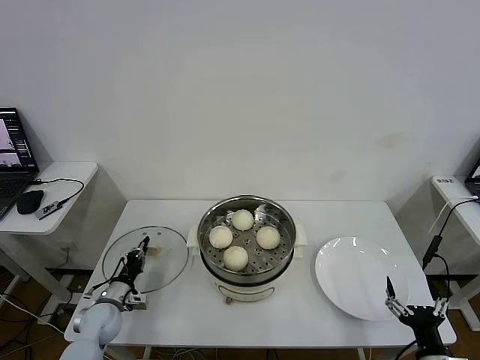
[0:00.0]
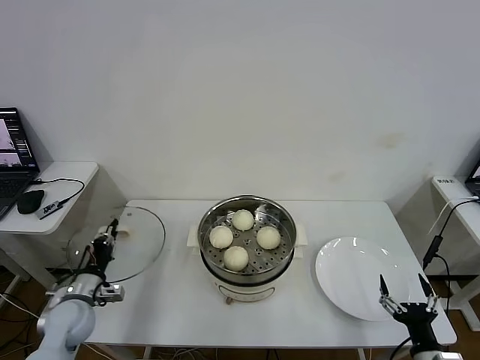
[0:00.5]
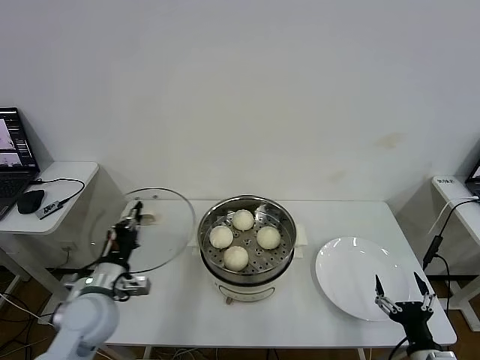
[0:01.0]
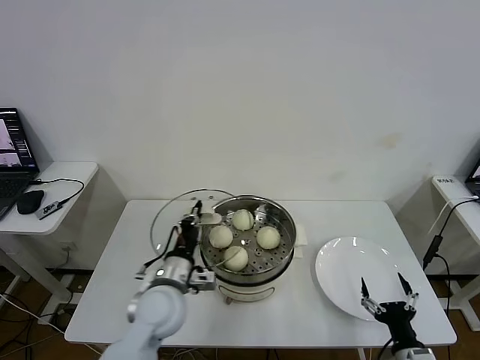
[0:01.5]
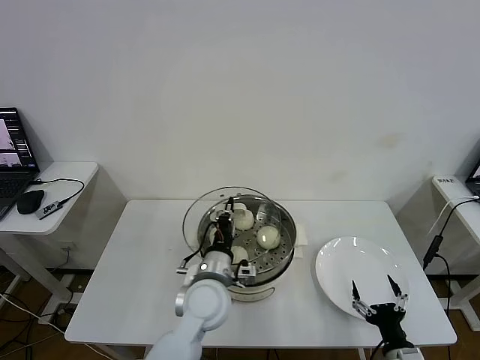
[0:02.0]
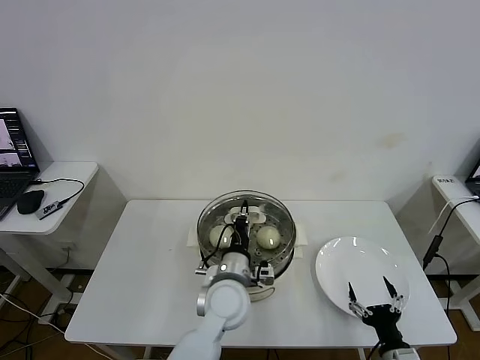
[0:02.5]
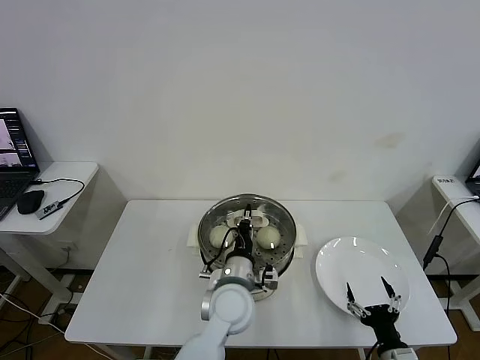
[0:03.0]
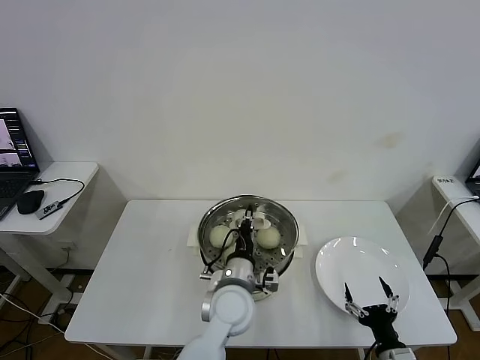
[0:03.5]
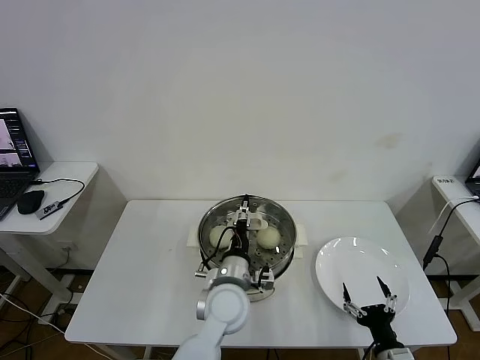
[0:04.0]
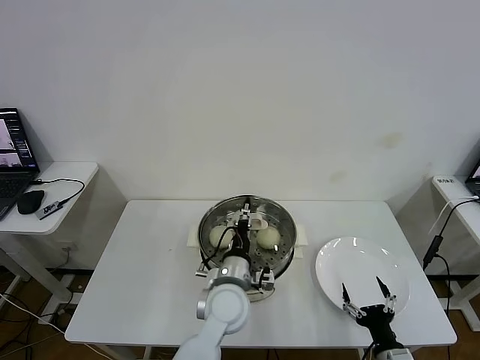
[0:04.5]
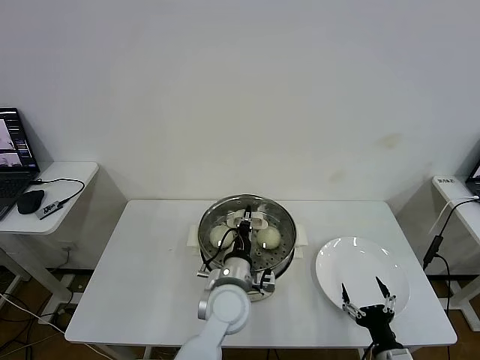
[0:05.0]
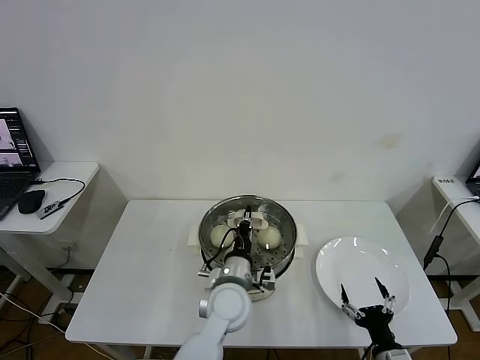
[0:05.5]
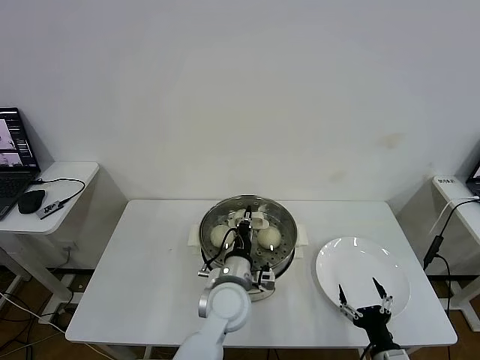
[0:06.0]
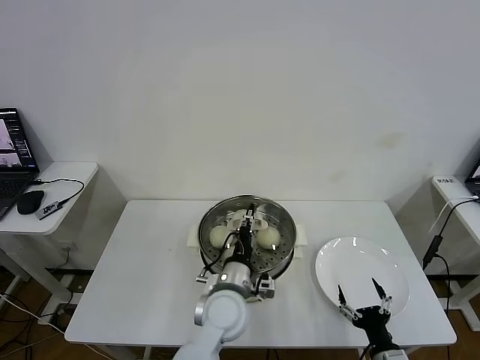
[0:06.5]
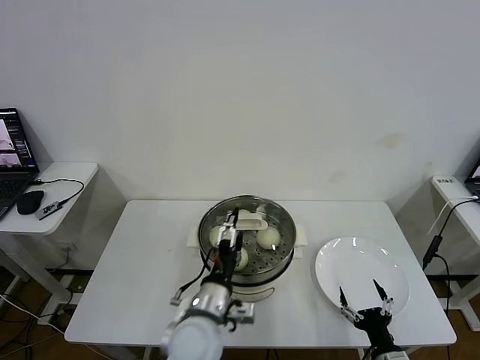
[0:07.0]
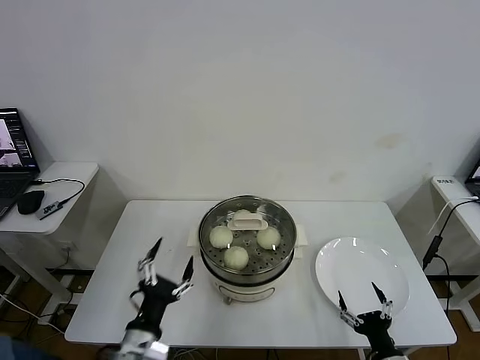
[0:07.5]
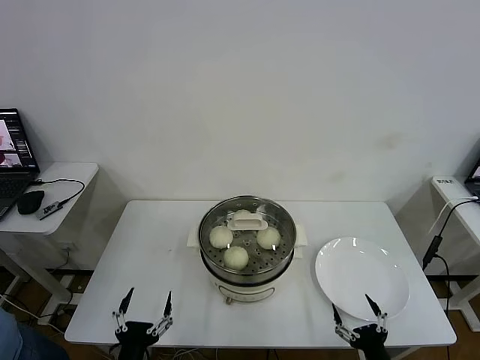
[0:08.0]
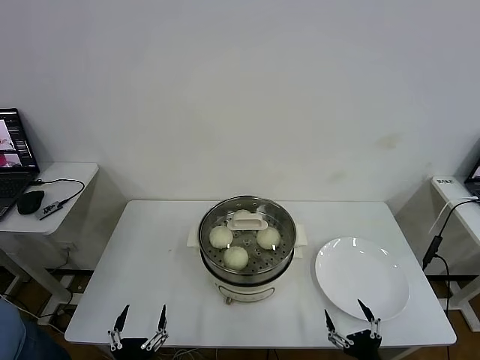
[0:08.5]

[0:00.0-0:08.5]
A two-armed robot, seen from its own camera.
Task of the whole recording: take steamed baozi put them in steamer then cover it.
Step, 0:00.5 to 0:06.0: Place the pot lid on the steamer with left gripper.
0:00.0 to 0:02.0: The right gripper ends up roughly 5 cm from where it was. The left gripper moves to the right and upward, roughly 35 cm.
0:02.0 to 0:04.0: The left gripper opens.
0:04.0 to 0:06.5: The left gripper closes, then reopens.
0:06.5 to 0:08.5: The right gripper is displaced backward by about 5 cm; the left gripper travels backward and to the left by roughly 30 cm, and opens its fingers.
